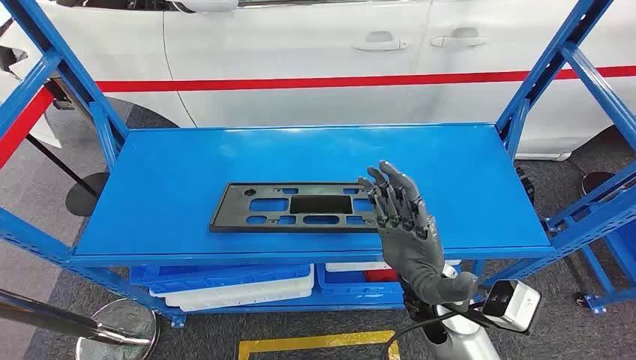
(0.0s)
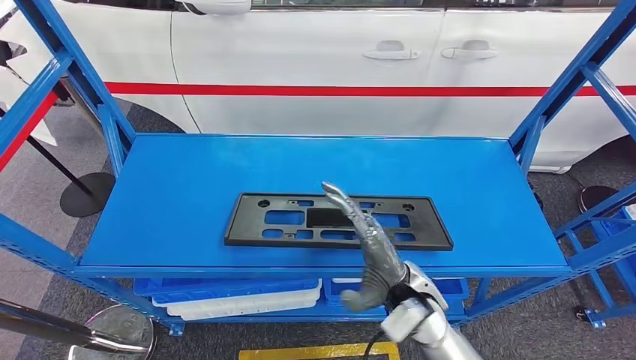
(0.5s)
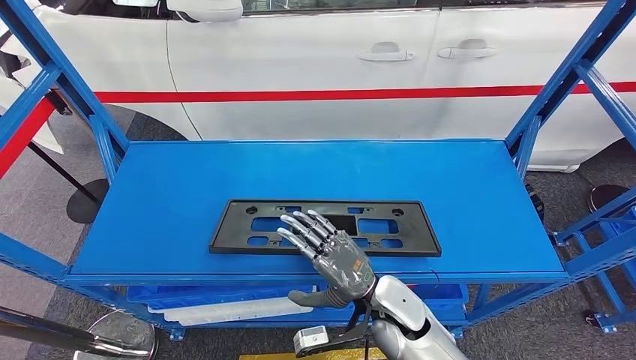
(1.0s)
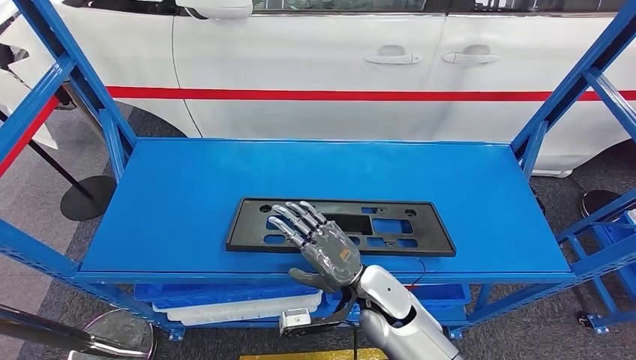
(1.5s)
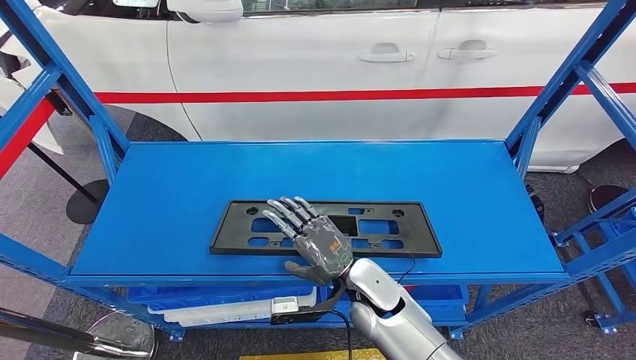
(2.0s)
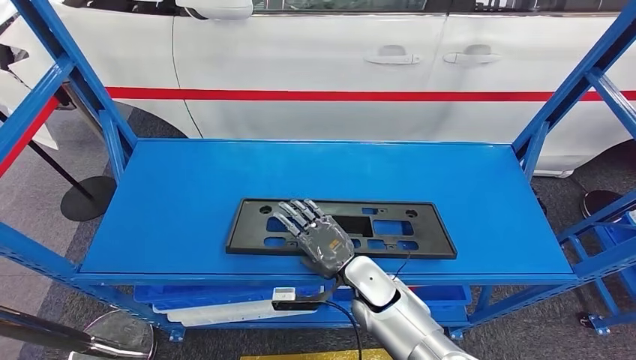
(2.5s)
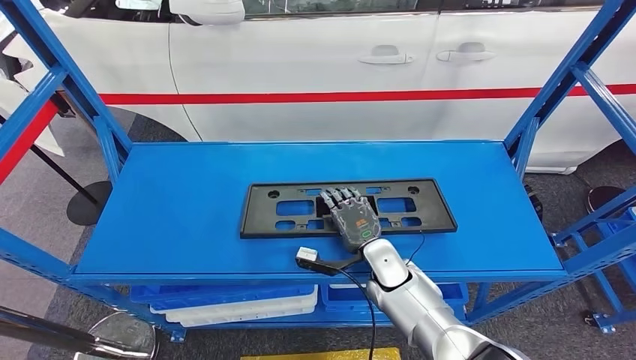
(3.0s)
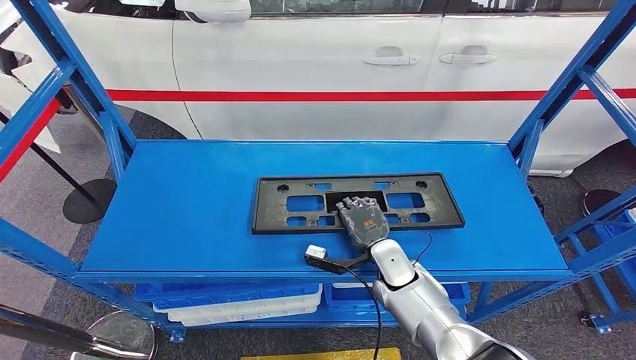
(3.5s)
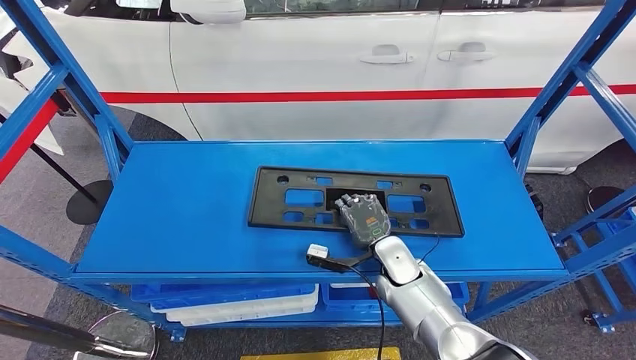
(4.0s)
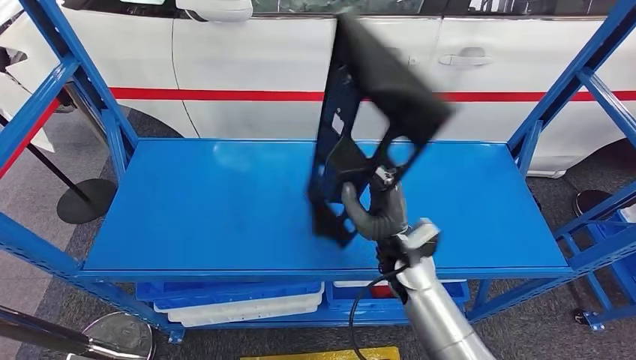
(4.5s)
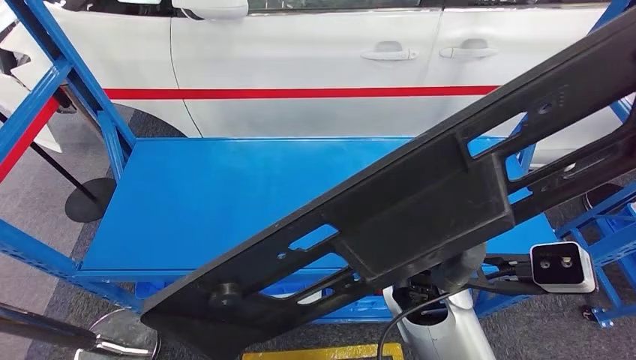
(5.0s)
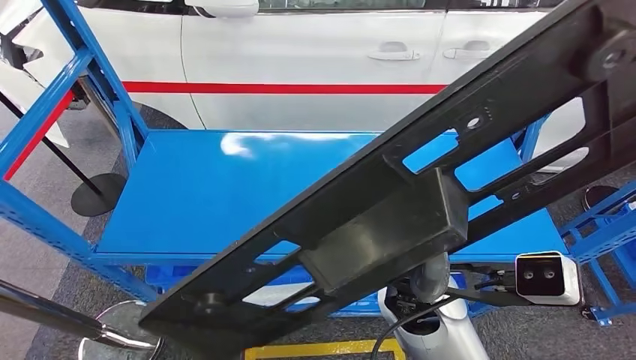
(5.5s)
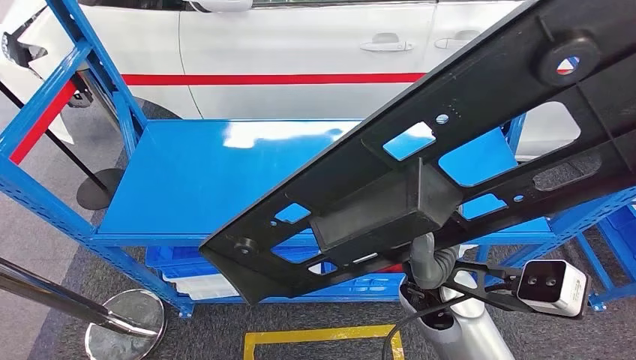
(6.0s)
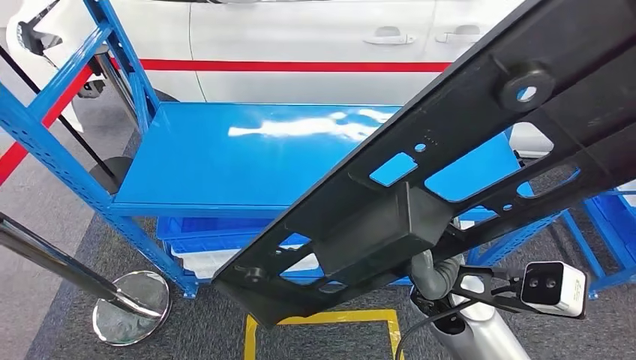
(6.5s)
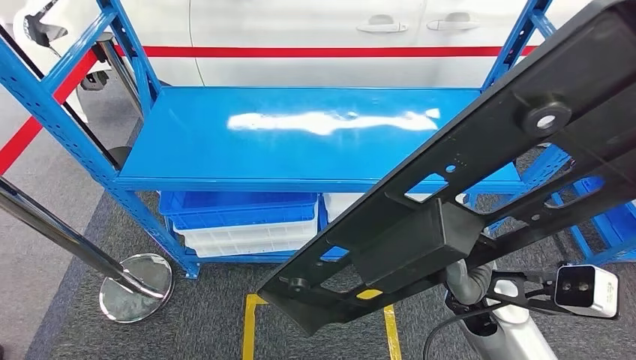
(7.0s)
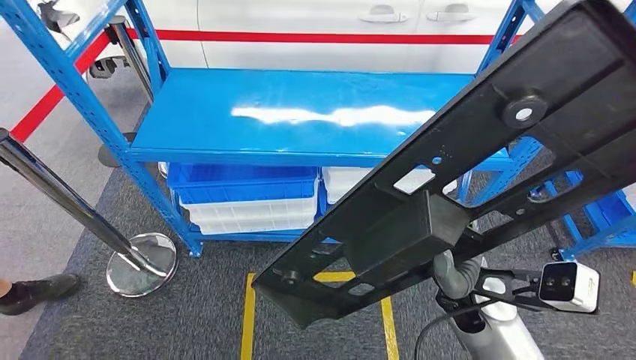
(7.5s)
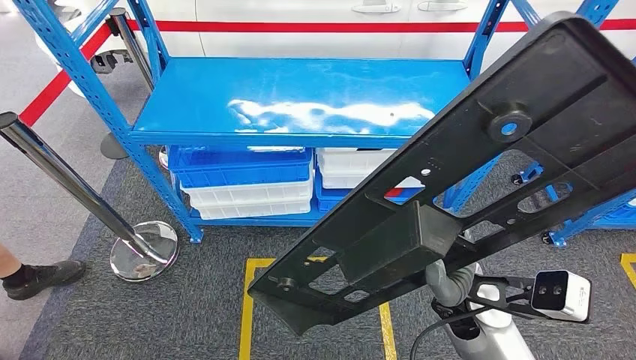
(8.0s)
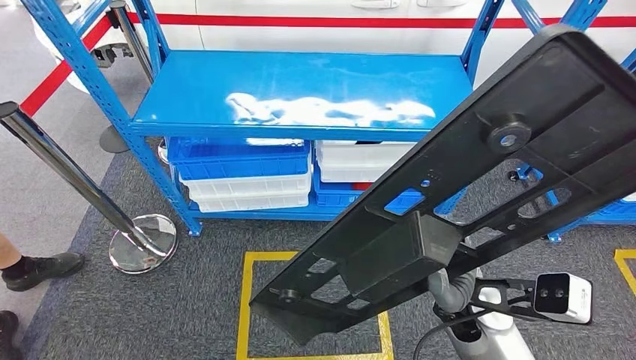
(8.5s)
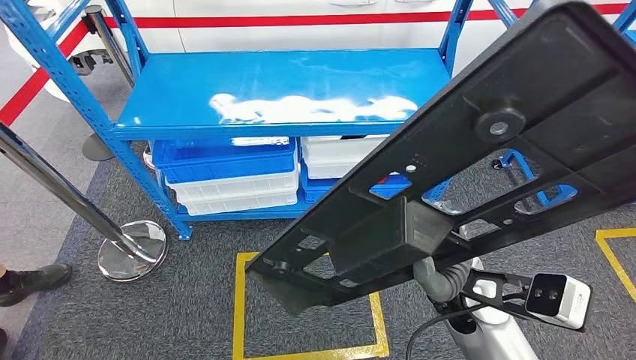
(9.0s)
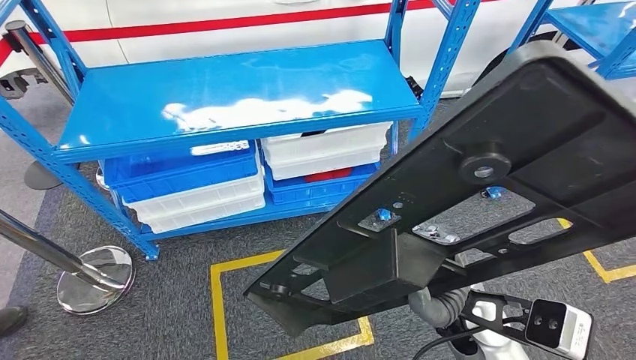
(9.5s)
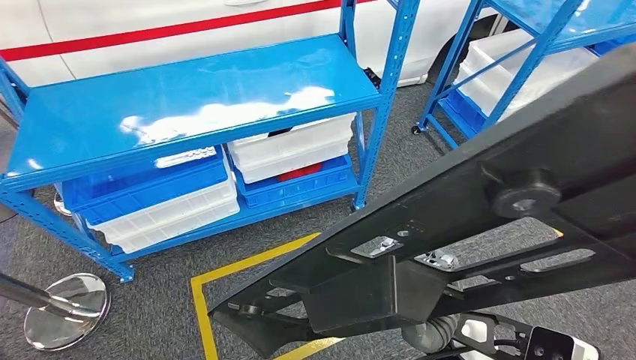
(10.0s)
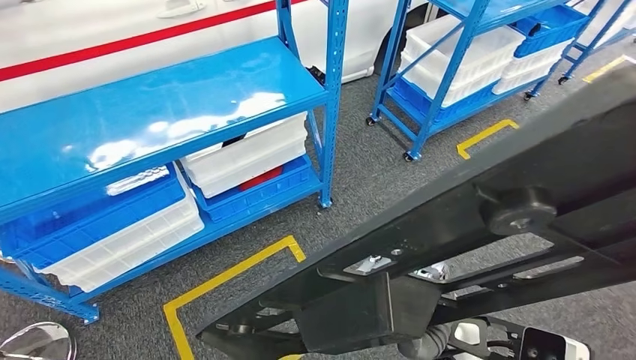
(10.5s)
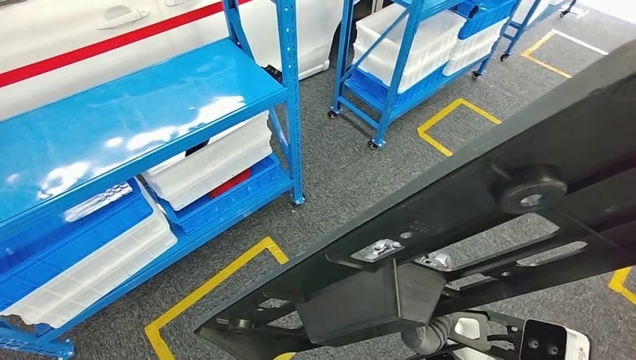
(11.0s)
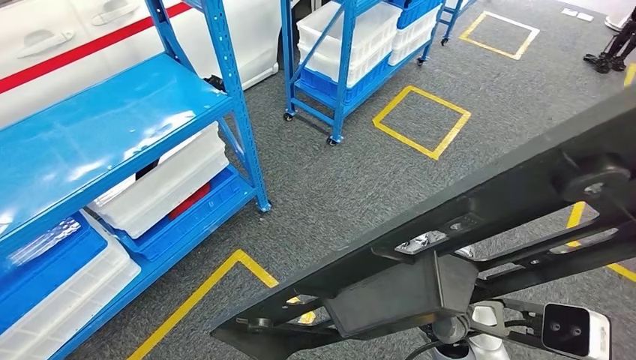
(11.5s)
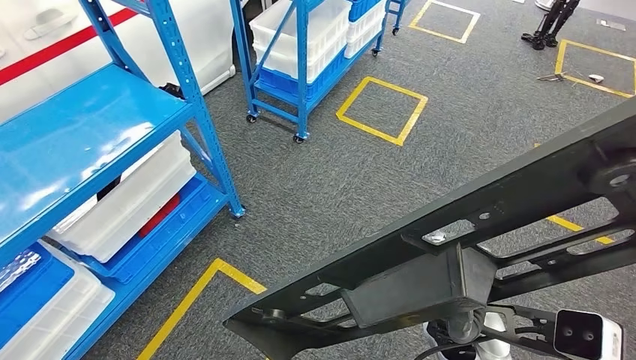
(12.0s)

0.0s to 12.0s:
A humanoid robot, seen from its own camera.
Step, 0.0s to 4.5s: Pick up the large material from the shelf.
2.0s to 4.0s: The right hand travels to the right and forward by some 10 cm.

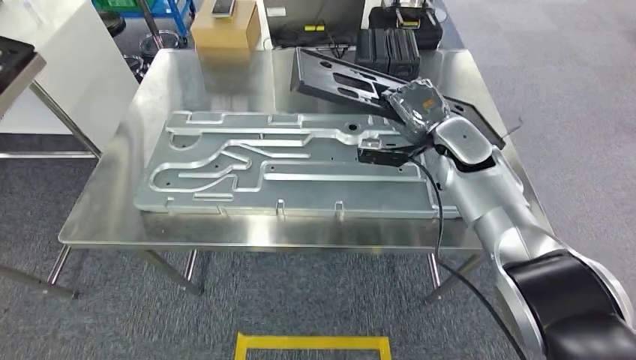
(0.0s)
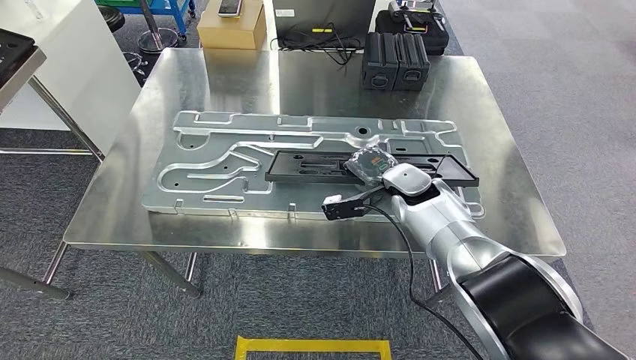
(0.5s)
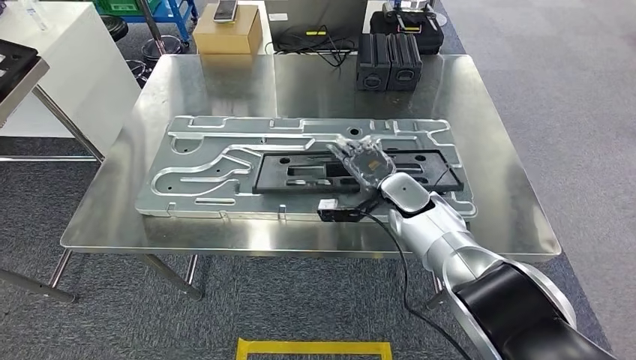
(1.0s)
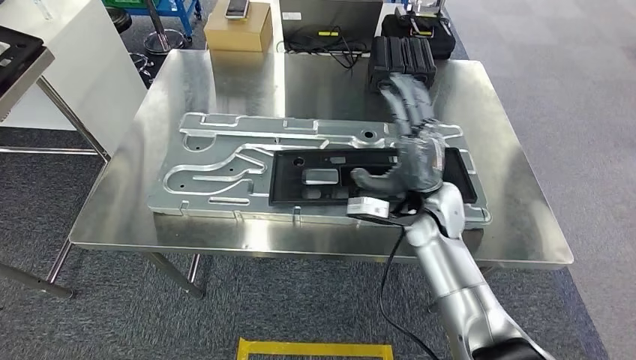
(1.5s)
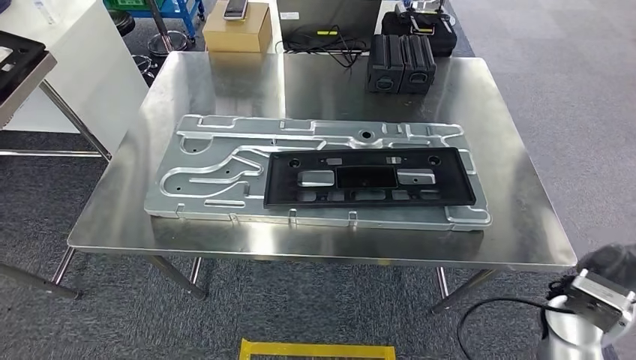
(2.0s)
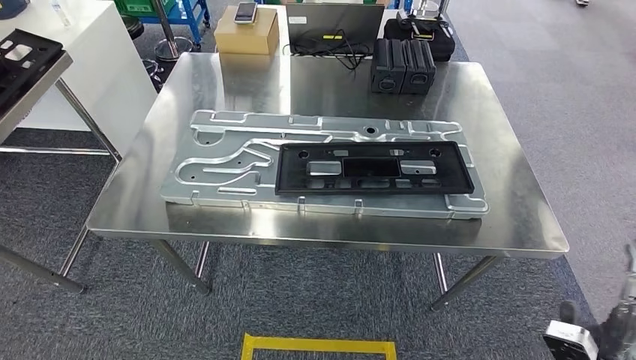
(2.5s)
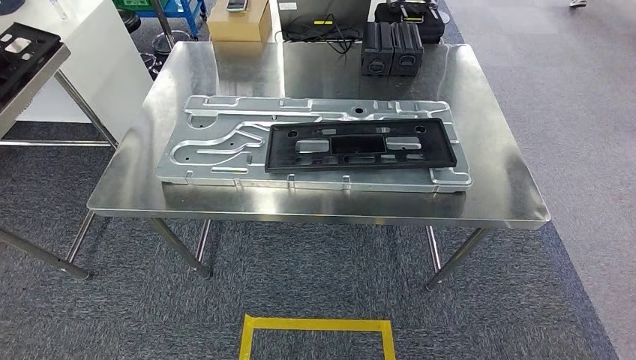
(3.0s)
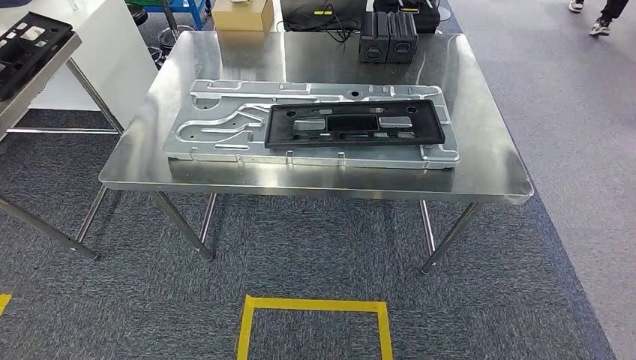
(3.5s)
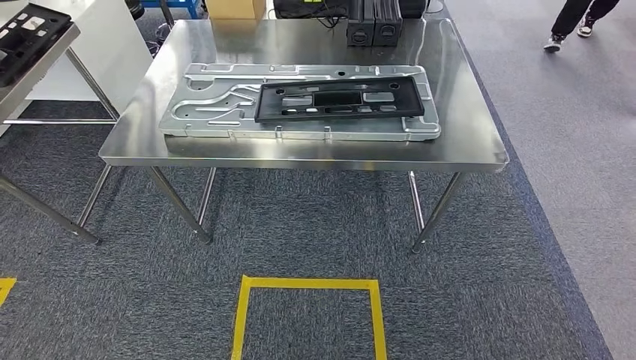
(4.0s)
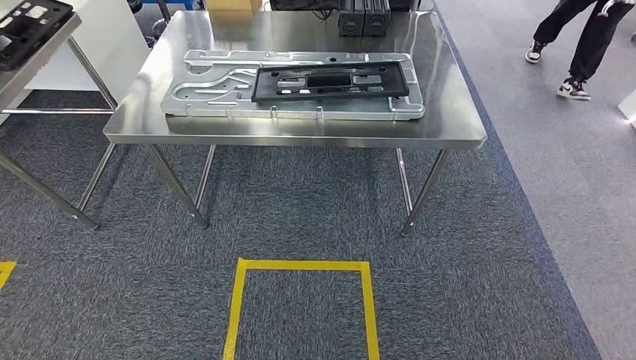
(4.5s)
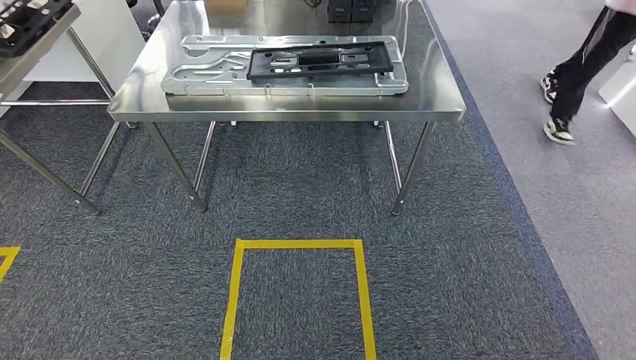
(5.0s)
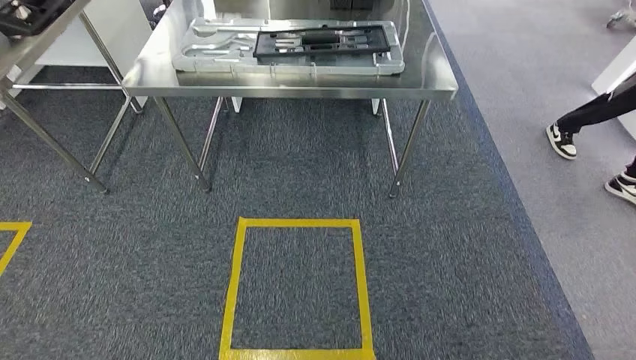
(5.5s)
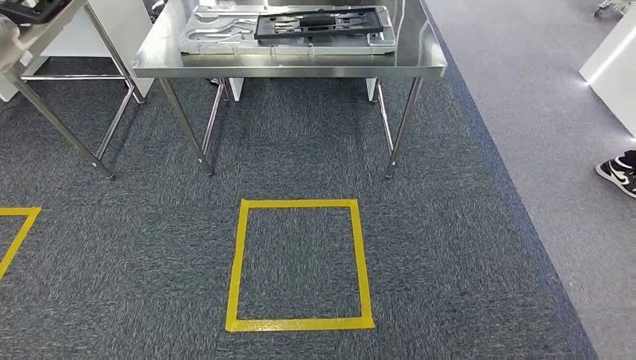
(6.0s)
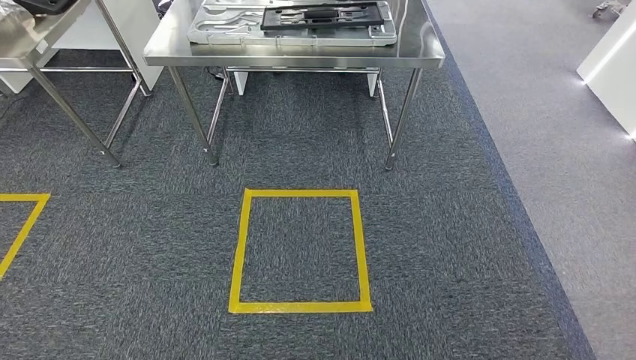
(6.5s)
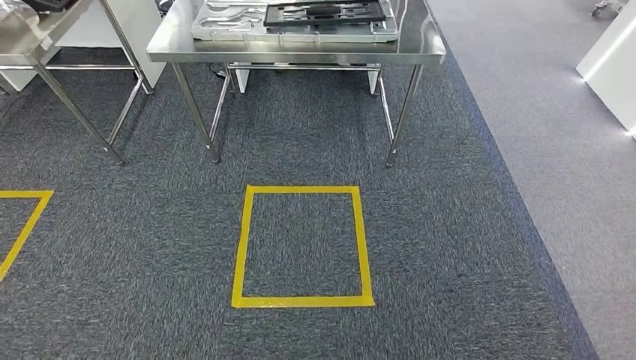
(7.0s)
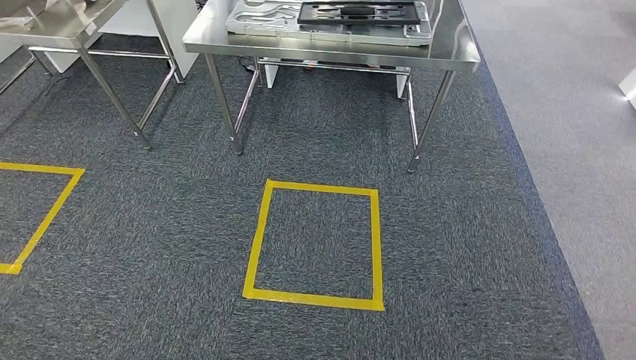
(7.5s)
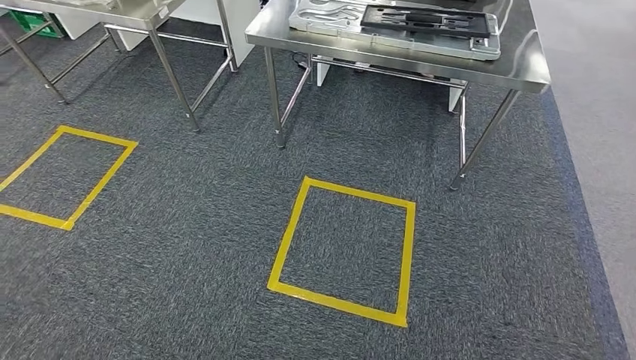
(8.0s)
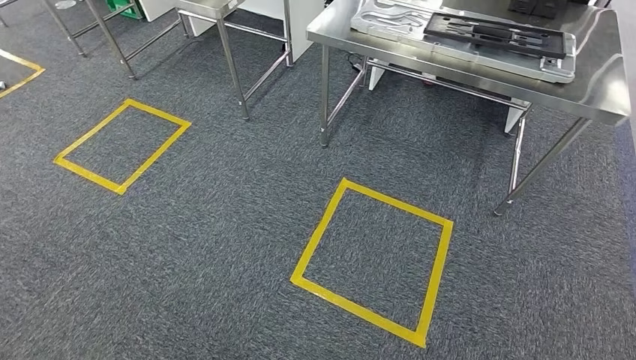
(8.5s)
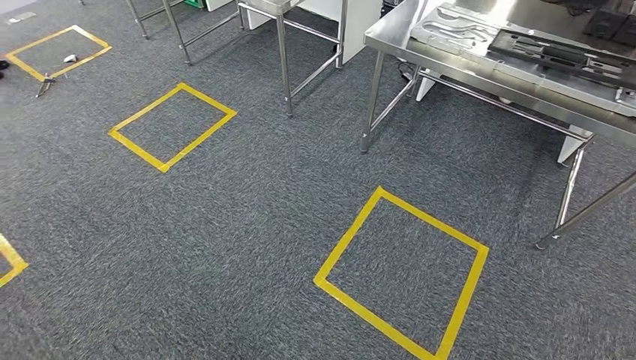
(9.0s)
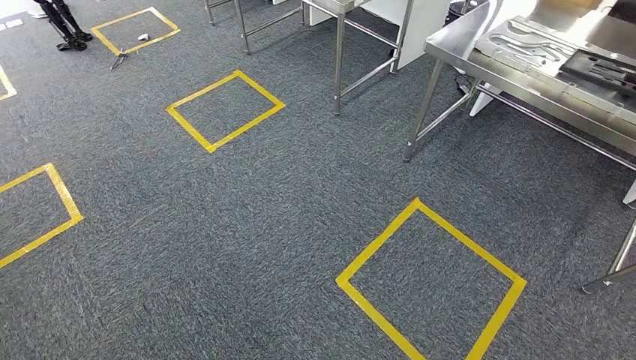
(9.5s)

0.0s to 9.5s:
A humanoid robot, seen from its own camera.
Step, 0.5s to 4.0s: Insert the large material into the corresponding slot on the workbench.
